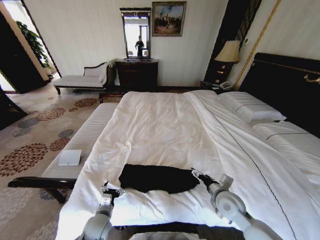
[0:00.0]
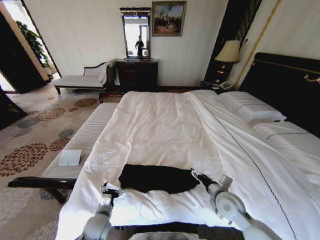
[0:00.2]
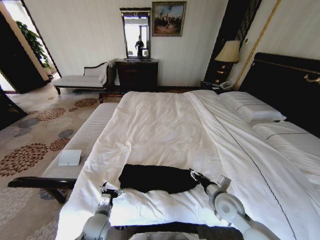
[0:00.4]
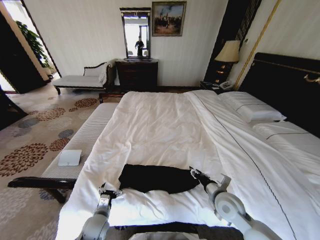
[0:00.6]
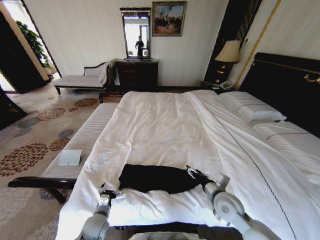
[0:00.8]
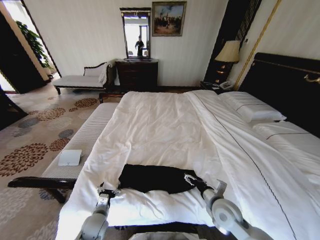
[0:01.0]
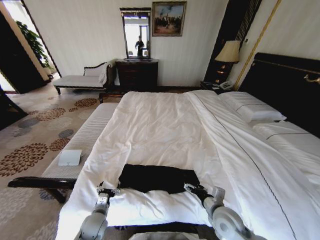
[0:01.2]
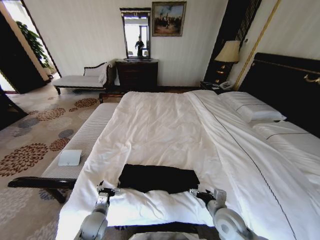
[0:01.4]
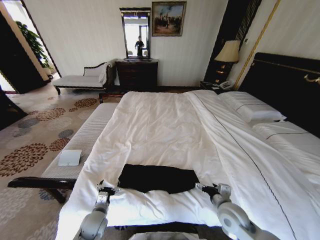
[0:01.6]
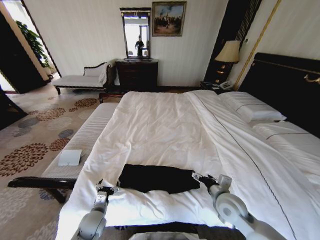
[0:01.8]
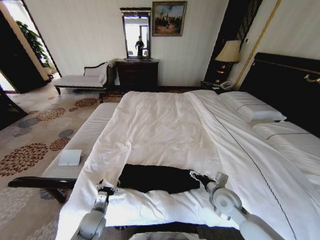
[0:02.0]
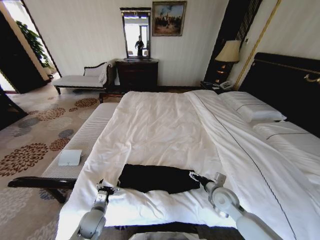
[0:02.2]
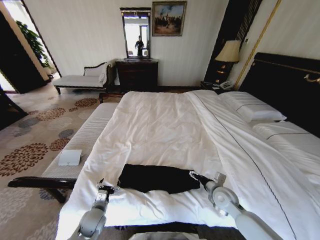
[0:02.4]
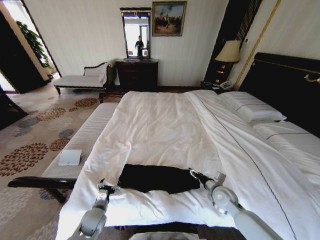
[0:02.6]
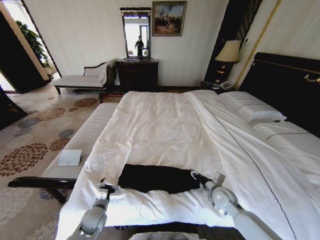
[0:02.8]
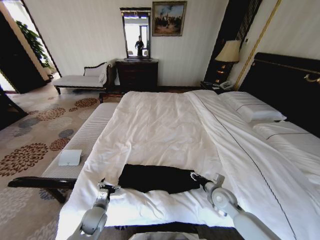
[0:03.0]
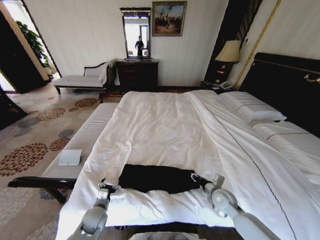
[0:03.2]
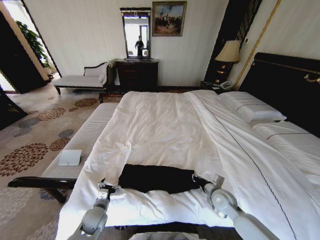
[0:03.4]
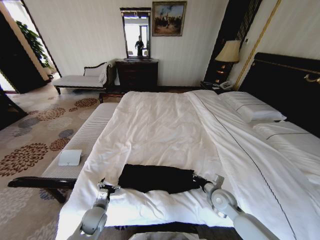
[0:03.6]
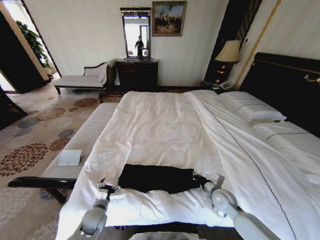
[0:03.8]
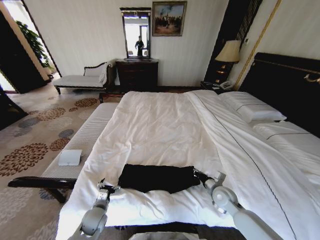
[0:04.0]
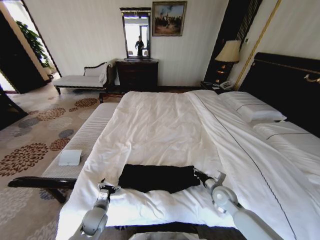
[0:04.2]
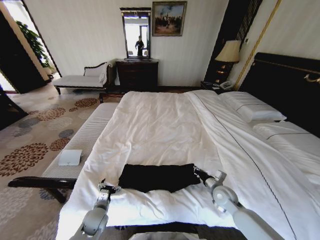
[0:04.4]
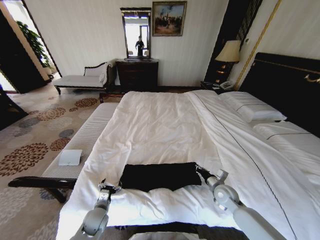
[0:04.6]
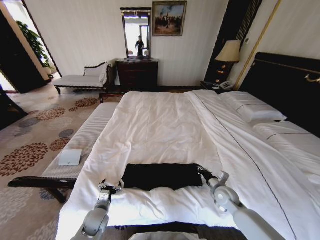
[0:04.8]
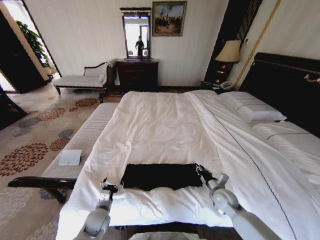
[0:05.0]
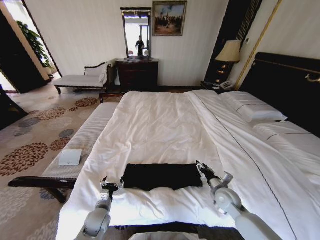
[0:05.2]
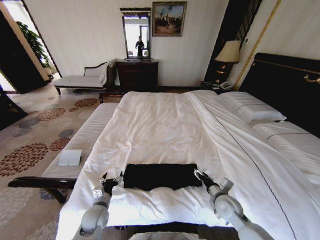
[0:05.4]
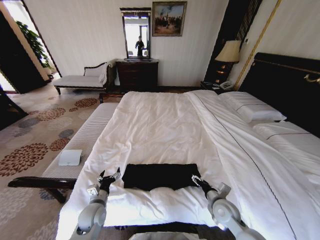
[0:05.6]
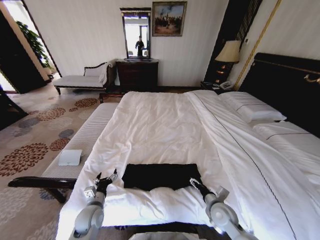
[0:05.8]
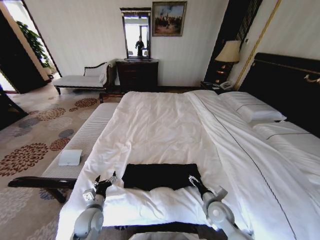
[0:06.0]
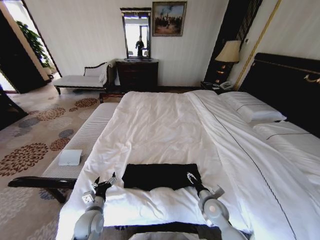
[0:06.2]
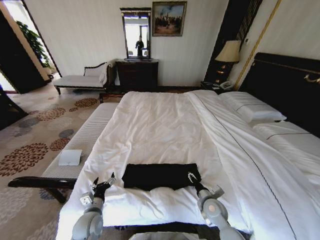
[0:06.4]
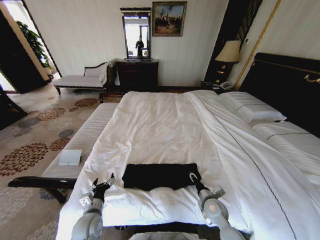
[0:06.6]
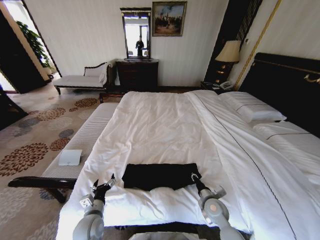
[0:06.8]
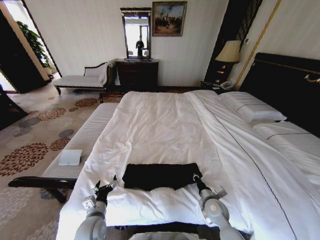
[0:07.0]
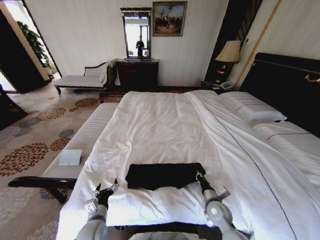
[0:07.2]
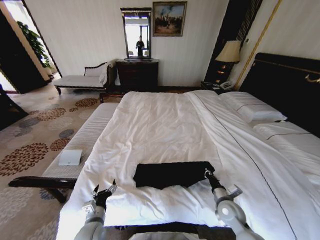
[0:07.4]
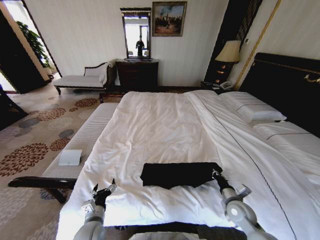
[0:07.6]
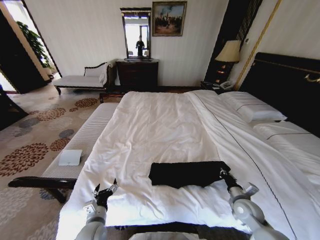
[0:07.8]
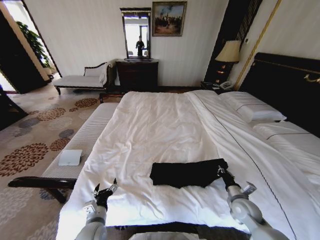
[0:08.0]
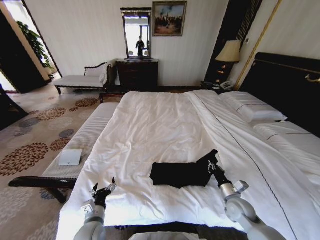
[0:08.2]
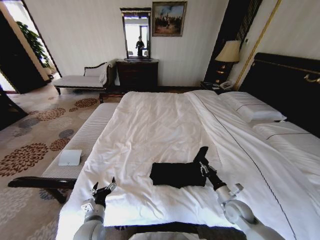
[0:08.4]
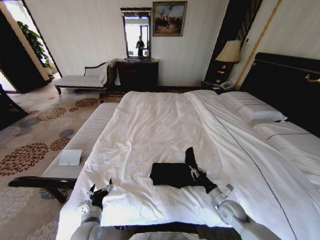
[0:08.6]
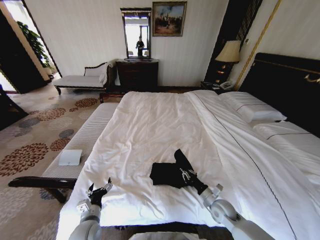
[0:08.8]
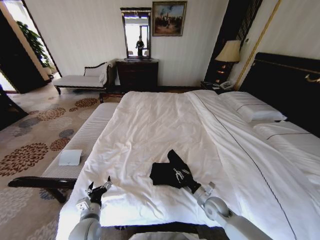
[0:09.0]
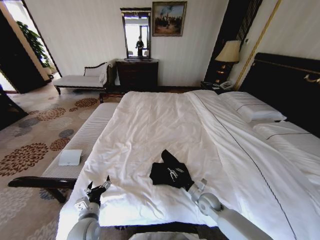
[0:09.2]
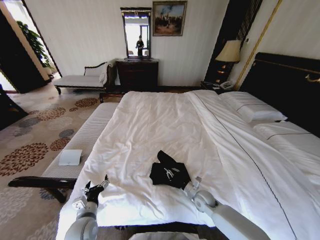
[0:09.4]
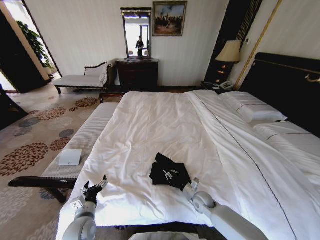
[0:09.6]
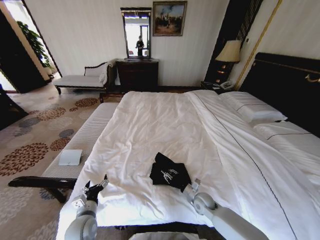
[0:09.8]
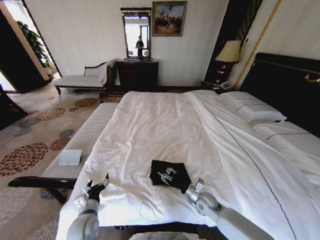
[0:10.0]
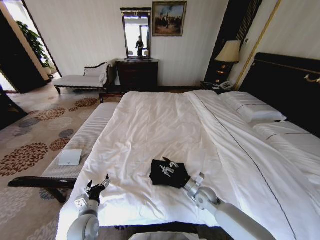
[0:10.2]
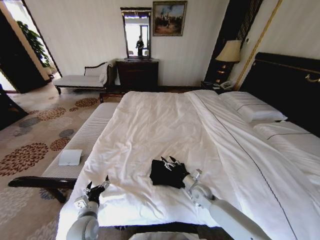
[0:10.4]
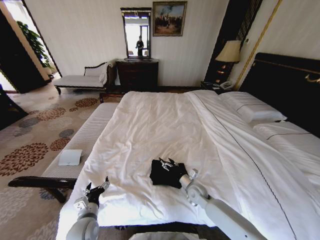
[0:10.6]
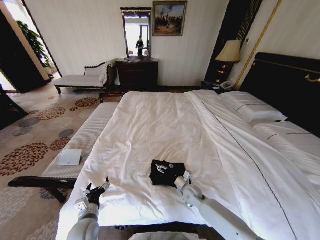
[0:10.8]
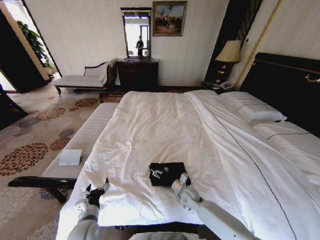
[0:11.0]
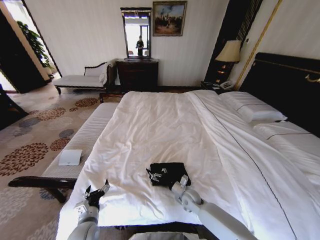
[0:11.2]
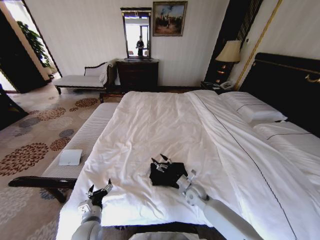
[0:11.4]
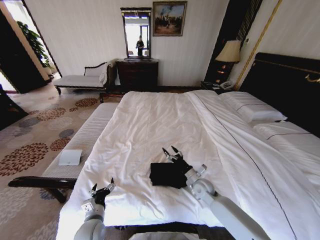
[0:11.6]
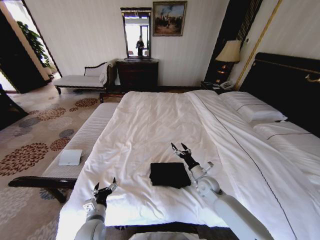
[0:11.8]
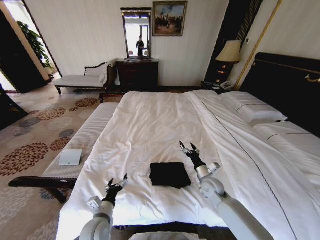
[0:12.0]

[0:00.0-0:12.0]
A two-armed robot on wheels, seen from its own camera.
Task of the whole recording: Fold the clothes on the bed.
0:00.0 to 0:01.6: The right gripper closes, then opens again.
0:01.6 to 0:03.0: The right gripper shifts roughly 5 cm forward, and closes.
0:03.0 to 0:04.4: The right gripper closes its fingers.
0:04.4 to 0:06.0: The left gripper shifts by about 5 cm; the right gripper is displaced backward by some 5 cm, and opens.
0:06.0 to 0:07.6: The right gripper is displaced to the right by some 10 cm, and closes up. Meanwhile the left gripper moves some 5 cm.
0:07.6 to 0:09.0: The right gripper heads to the left and downward, covering roughly 10 cm.
0:09.0 to 0:10.4: The right gripper moves forward and to the left, approximately 10 cm, and opens up.
0:10.4 to 0:12.0: The right gripper moves upward, approximately 5 cm.

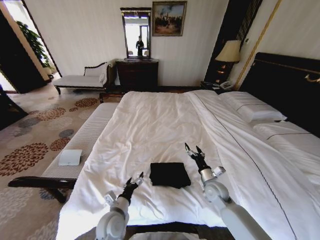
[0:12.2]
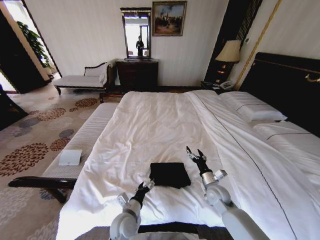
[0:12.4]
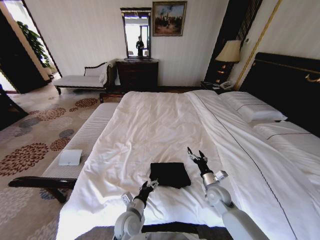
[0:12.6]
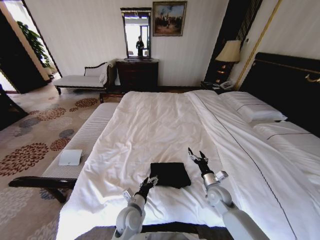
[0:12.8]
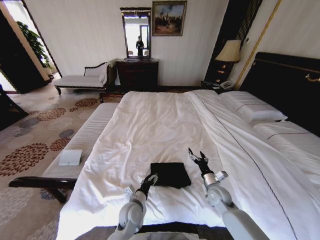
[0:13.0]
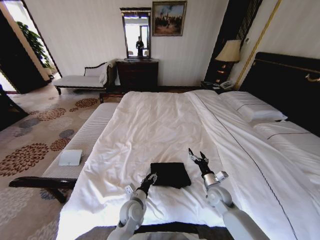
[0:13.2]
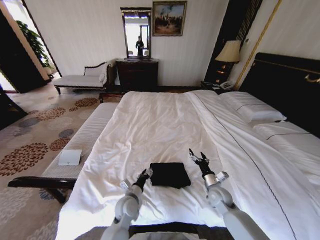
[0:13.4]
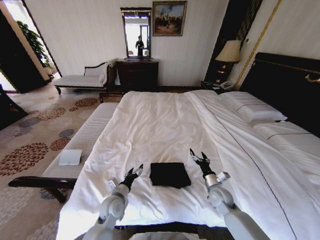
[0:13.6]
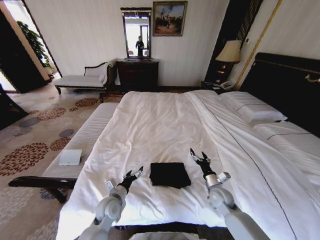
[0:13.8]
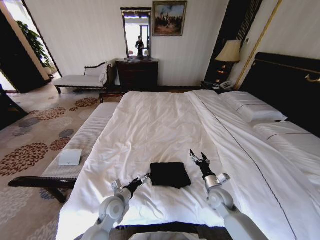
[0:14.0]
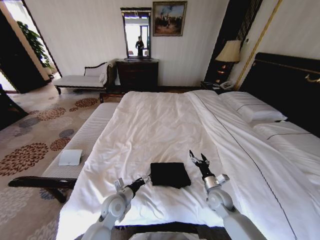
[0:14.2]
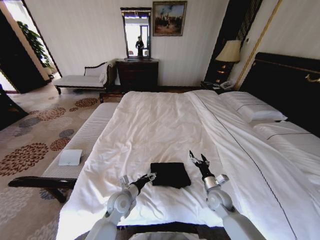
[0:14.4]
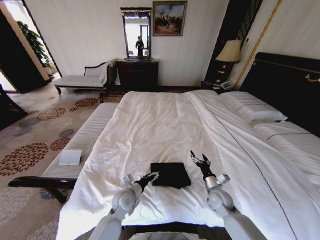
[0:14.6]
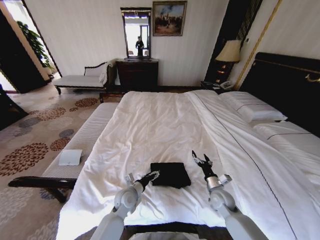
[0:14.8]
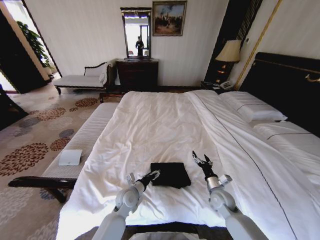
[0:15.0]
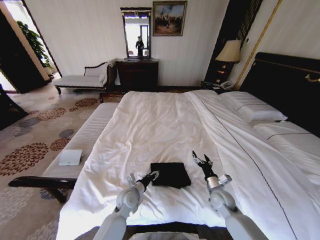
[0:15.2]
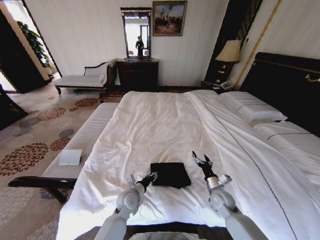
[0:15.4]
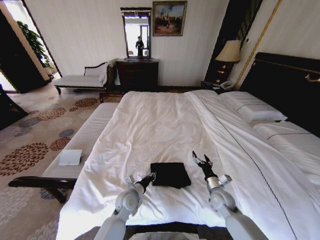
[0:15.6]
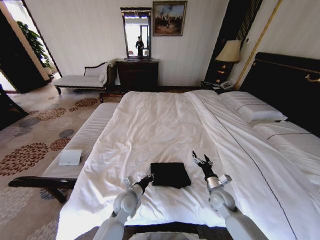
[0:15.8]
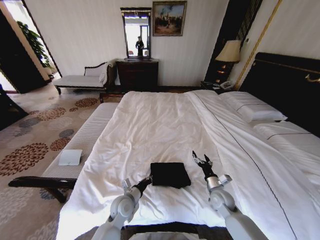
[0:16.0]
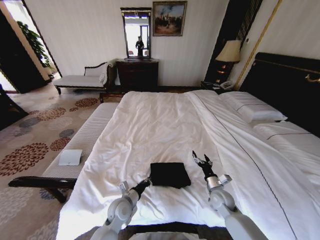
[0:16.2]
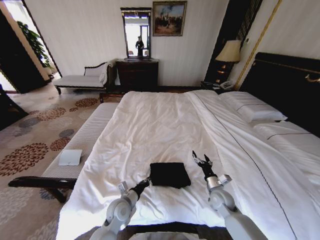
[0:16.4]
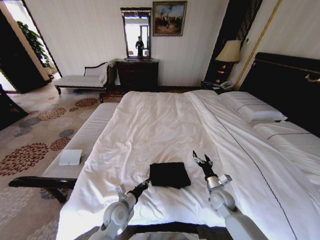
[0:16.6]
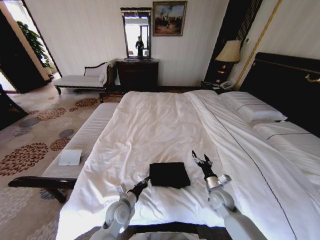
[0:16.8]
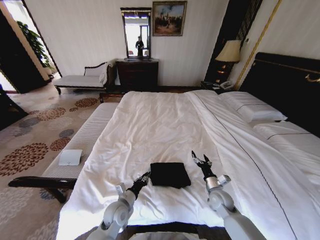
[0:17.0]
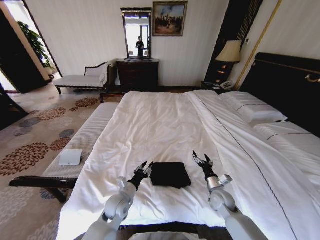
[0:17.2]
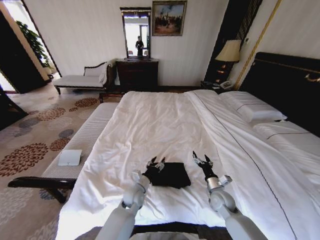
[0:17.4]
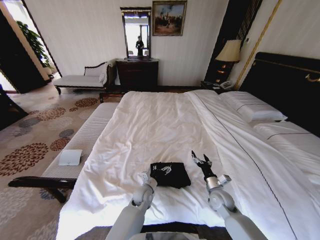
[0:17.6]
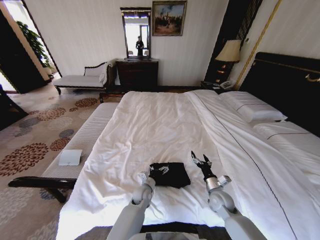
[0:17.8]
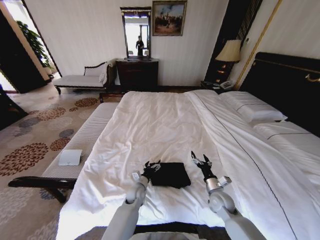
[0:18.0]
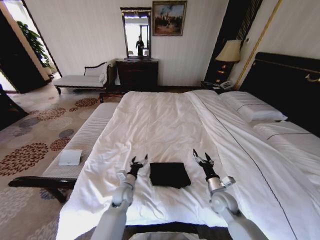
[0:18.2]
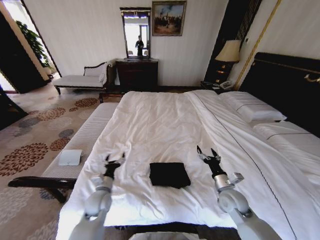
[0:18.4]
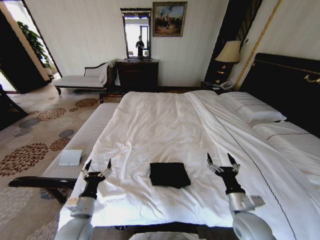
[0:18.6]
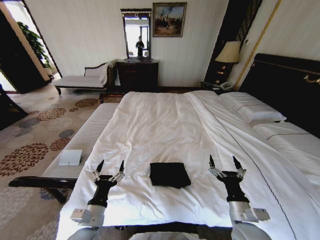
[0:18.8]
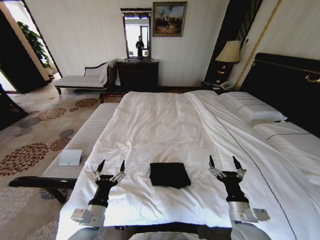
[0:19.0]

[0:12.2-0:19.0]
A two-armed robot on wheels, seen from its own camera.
Task of the whole recording: Fold the clothes on the bed.
0:12.2 to 0:13.6: The left gripper heads forward, covering about 5 cm, and moves approximately 10 cm to the right and comes back.
0:13.6 to 0:15.0: The left gripper shifts some 5 cm to the right.
0:15.0 to 0:16.2: The left gripper closes.
0:16.2 to 0:17.6: The left gripper heads to the right and forward, covering approximately 10 cm, and opens.
0:17.6 to 0:19.0: The right gripper shifts approximately 15 cm backward and upward, while the left gripper shifts about 30 cm backward, to the left and upward.
